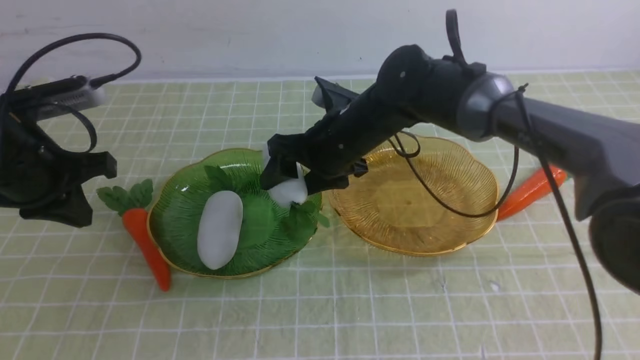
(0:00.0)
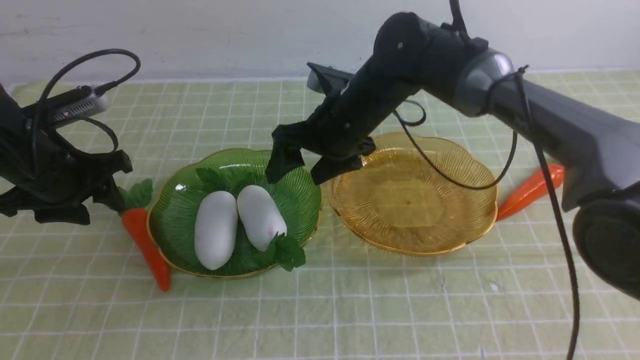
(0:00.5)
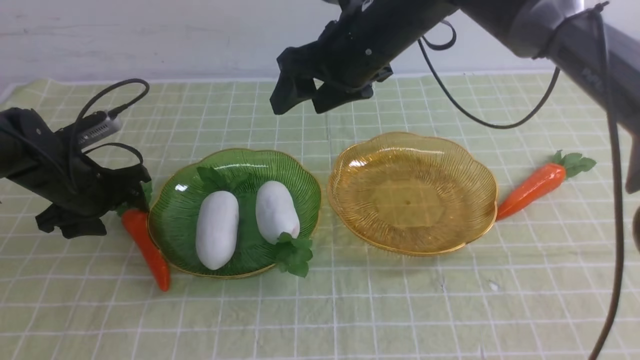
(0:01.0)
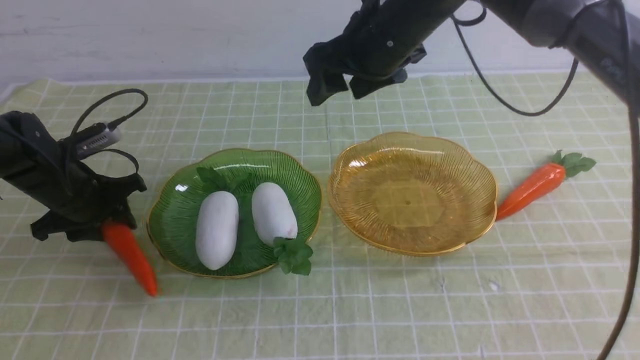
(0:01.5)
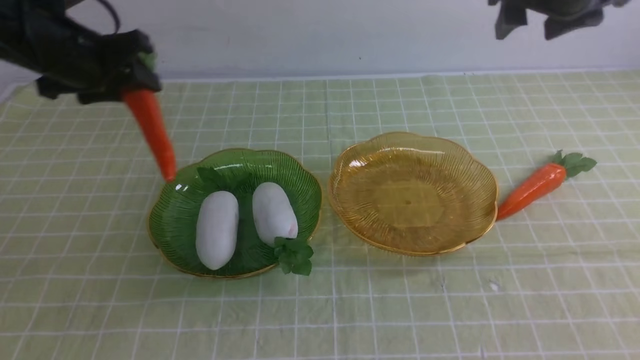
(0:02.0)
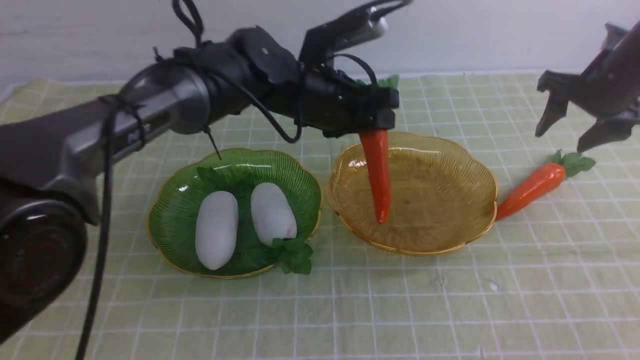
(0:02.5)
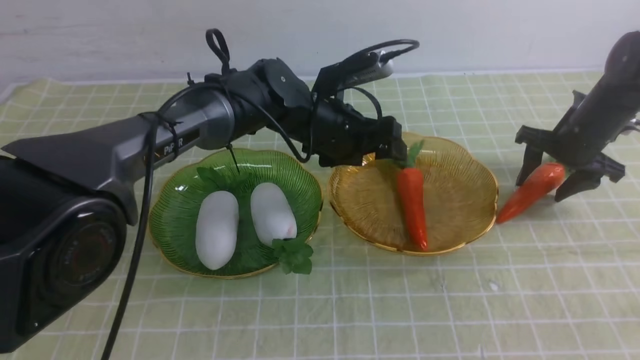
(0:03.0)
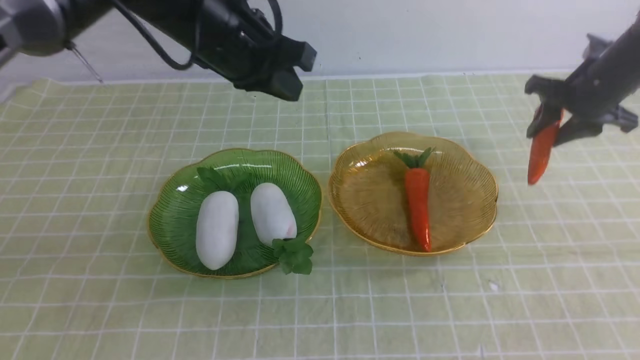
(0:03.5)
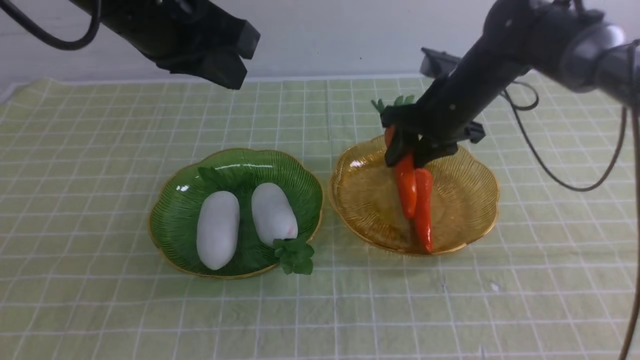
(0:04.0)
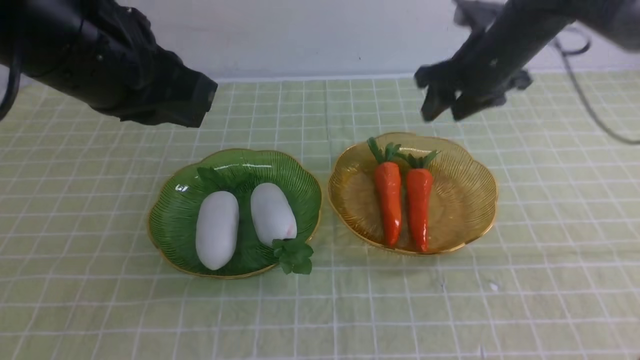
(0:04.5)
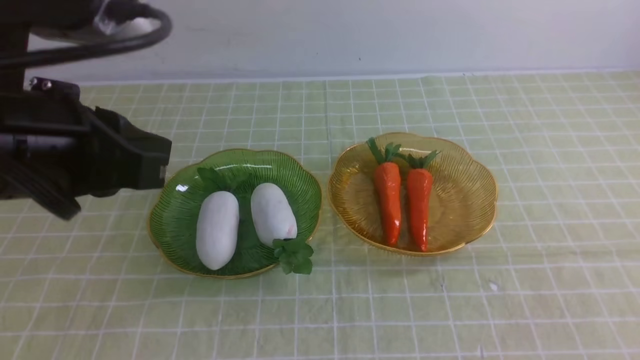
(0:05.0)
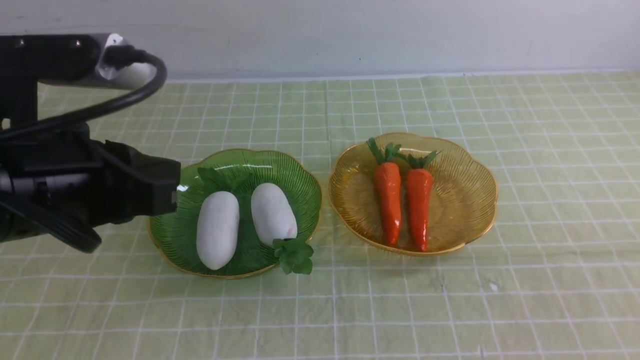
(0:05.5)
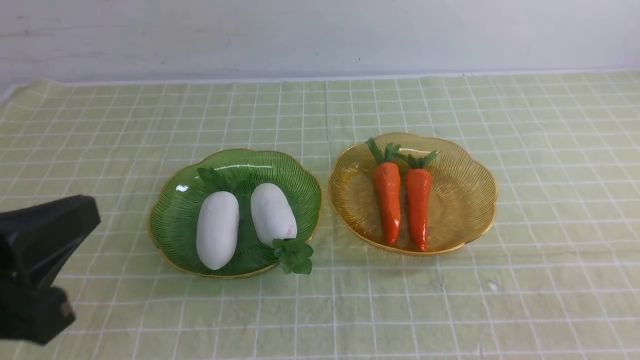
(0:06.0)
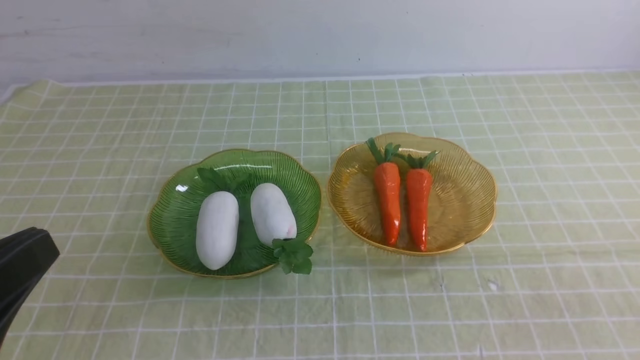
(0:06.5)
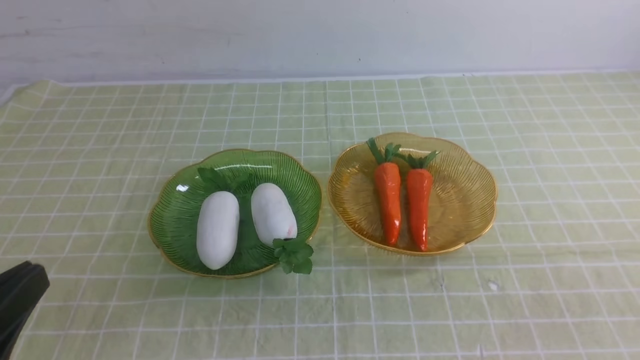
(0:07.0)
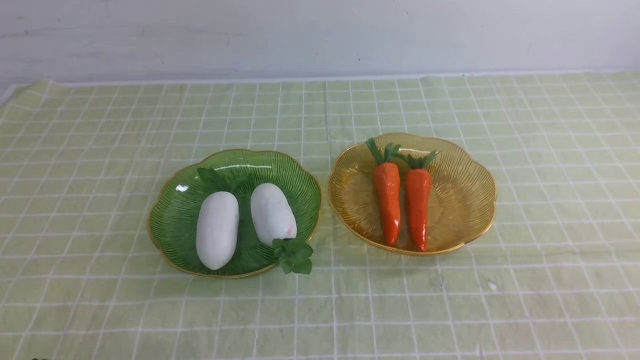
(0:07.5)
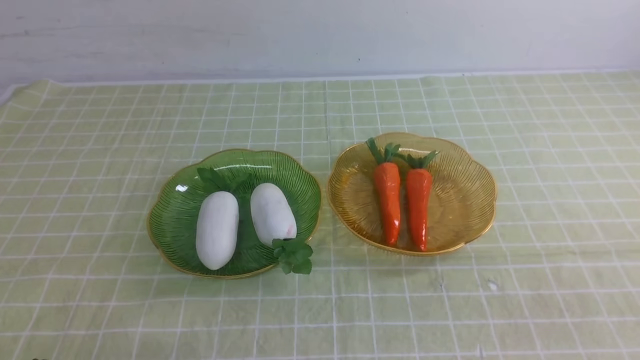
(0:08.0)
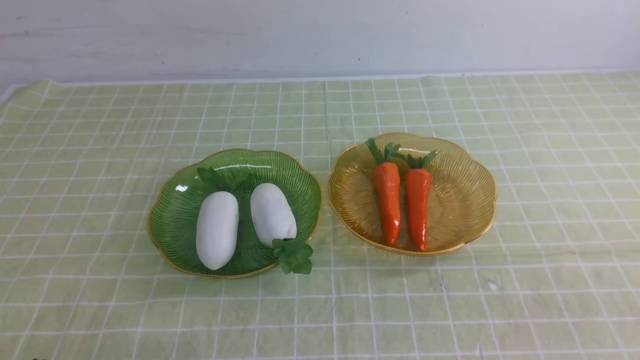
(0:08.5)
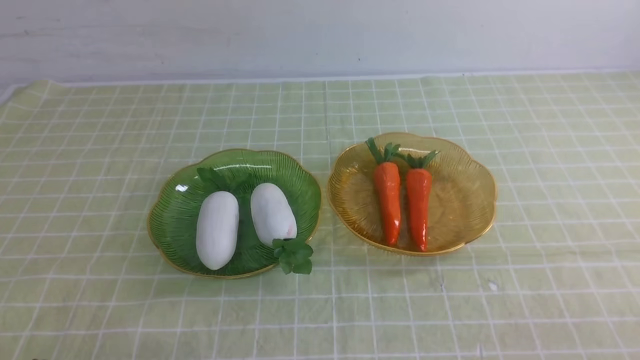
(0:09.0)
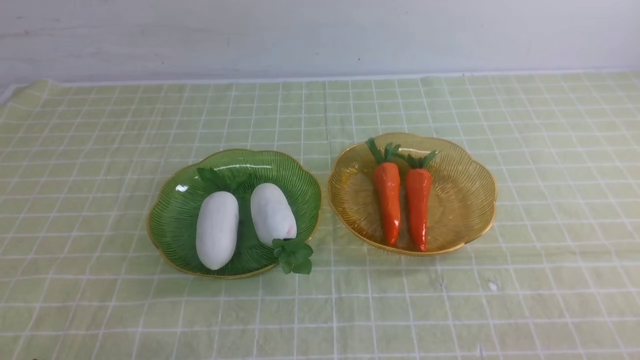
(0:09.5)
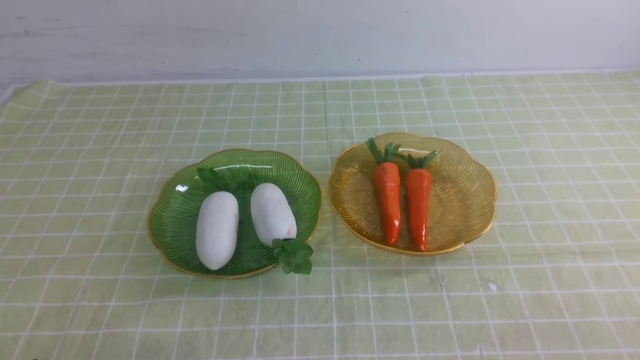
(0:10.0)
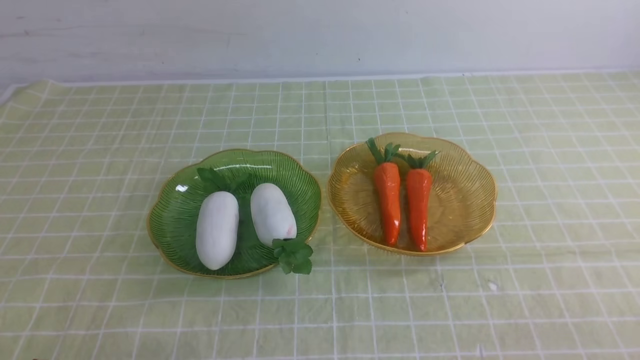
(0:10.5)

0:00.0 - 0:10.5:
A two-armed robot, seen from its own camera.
Step, 0:00.0 - 0:01.0: use the right arm to grab a radish and put it into the left plate.
Step, 0:01.5 - 0:03.5: use the left arm to grab a carrot and put it into the right plate.
Step, 0:04.0 - 0:05.5: use the right arm to grab a carrot and put it into the right plate.
0:00.0 - 0:02.0: The right gripper moves to the right and upward, some 25 cm; the left gripper is displaced forward by about 10 cm, goes downward and returns, about 10 cm each way, and opens.
0:02.0 - 0:04.0: The right gripper is displaced downward and to the left by about 15 cm, while the left gripper heads backward, upward and to the right, covering approximately 20 cm, and closes its fingers.
0:04.0 - 0:06.5: The left gripper moves backward, about 25 cm, while the right gripper travels backward by roughly 40 cm, and closes.
0:06.5 - 0:08.5: The left gripper travels downward by roughly 15 cm.

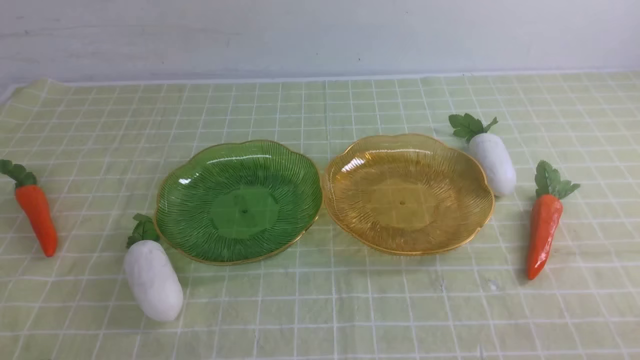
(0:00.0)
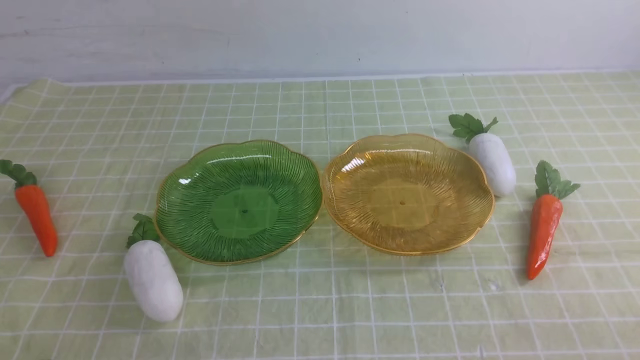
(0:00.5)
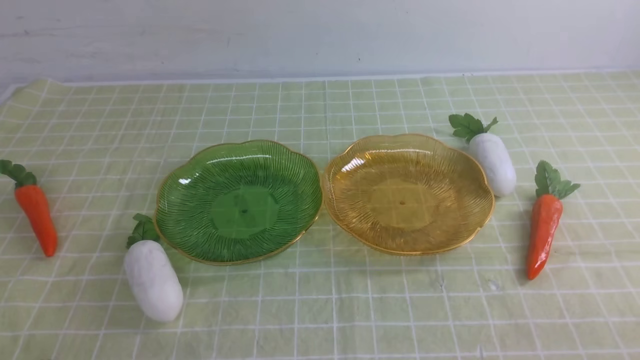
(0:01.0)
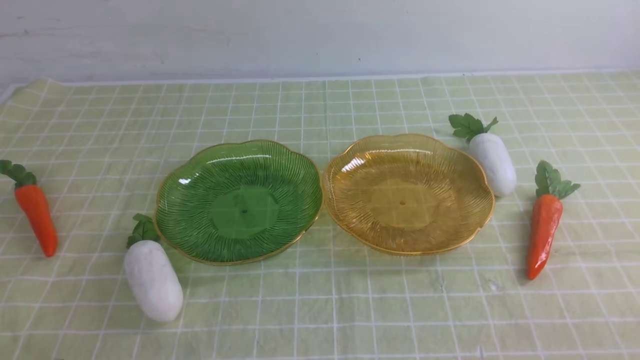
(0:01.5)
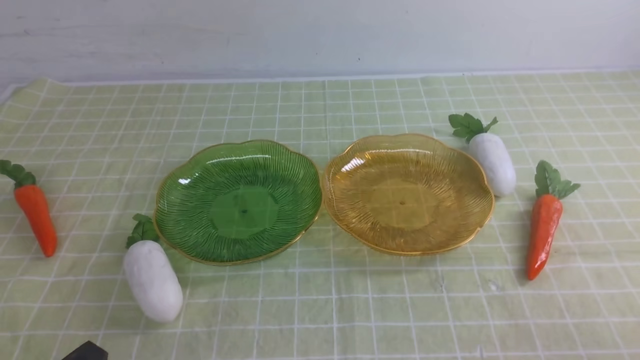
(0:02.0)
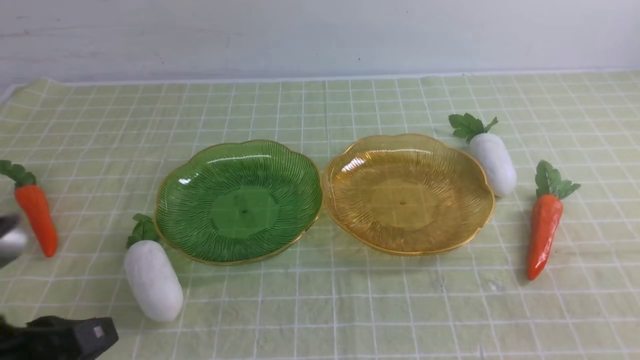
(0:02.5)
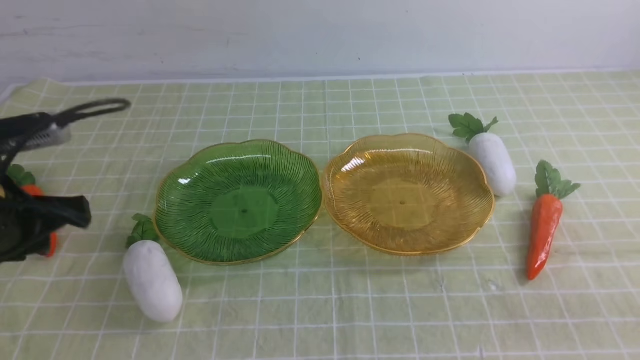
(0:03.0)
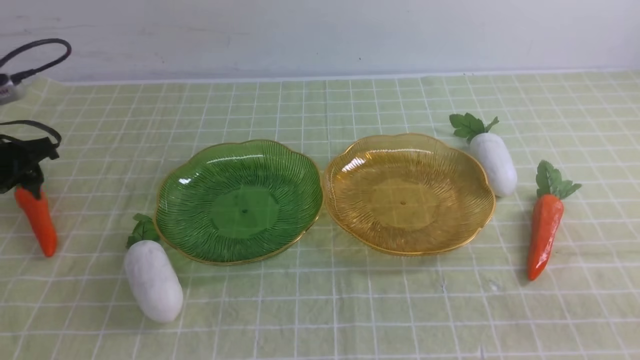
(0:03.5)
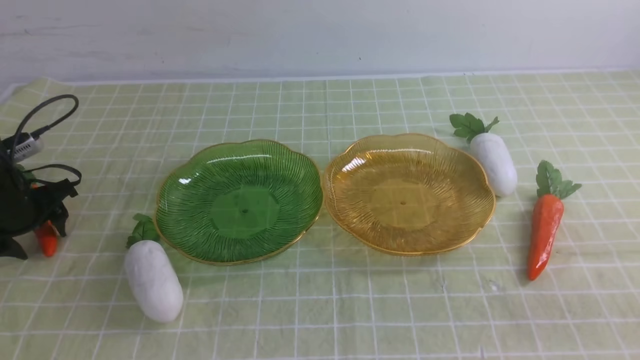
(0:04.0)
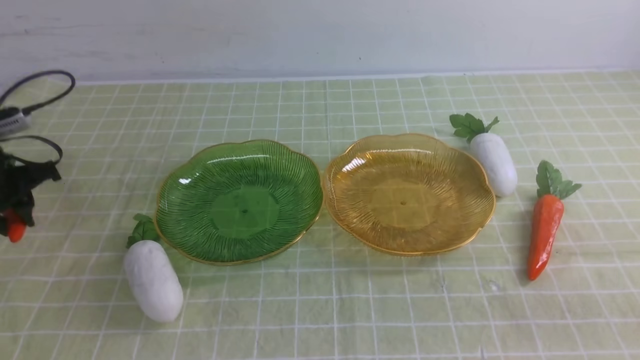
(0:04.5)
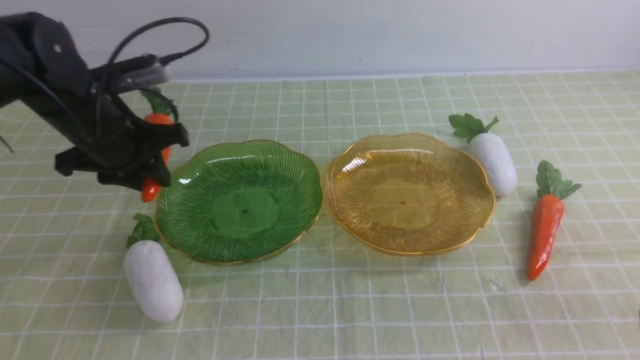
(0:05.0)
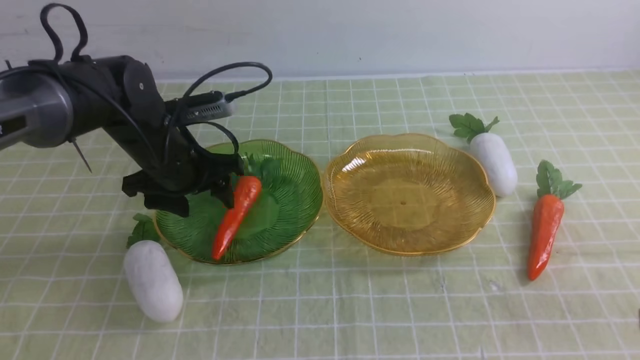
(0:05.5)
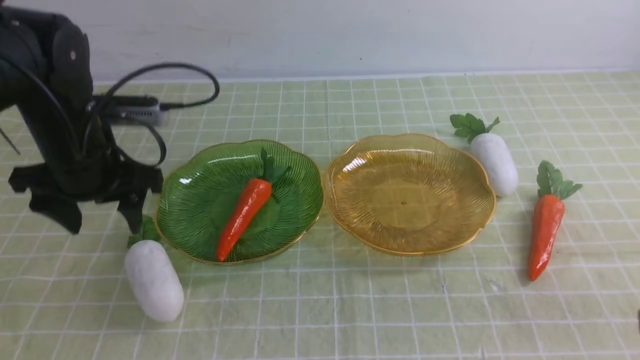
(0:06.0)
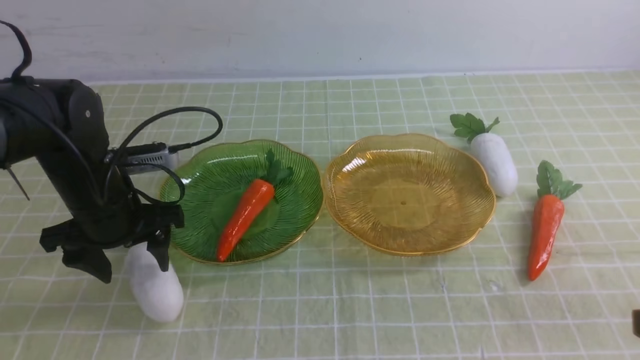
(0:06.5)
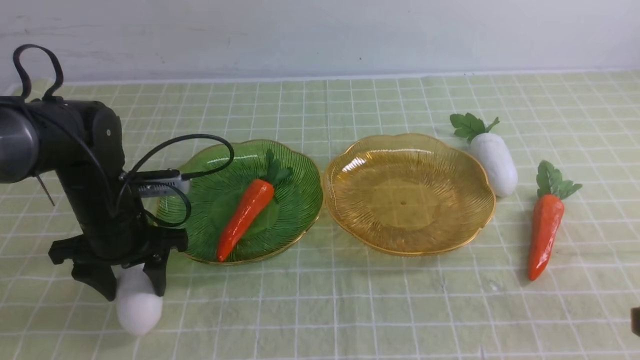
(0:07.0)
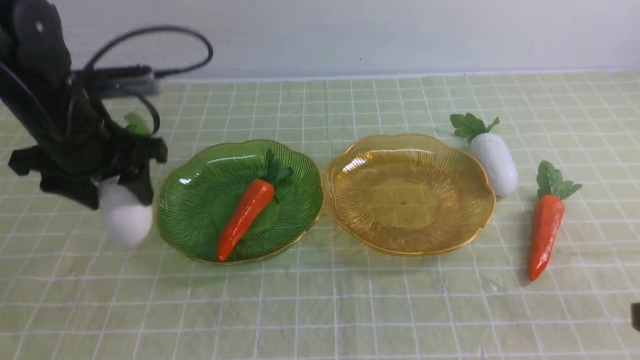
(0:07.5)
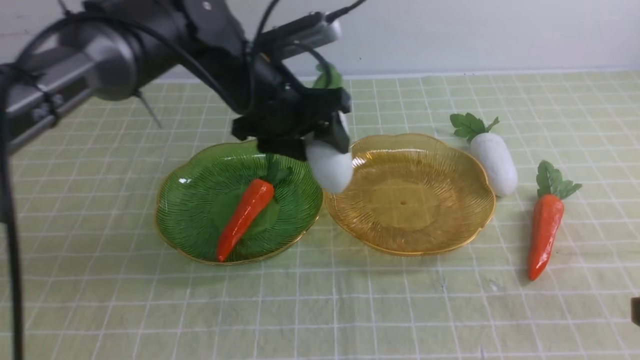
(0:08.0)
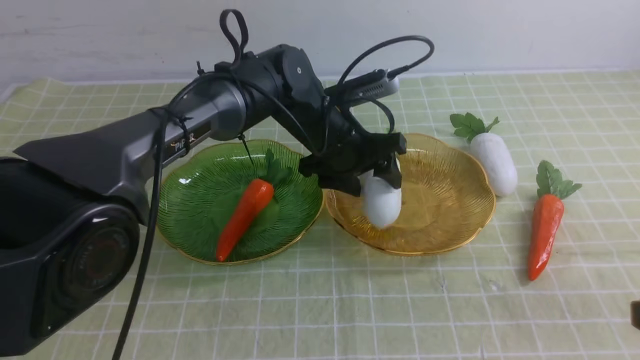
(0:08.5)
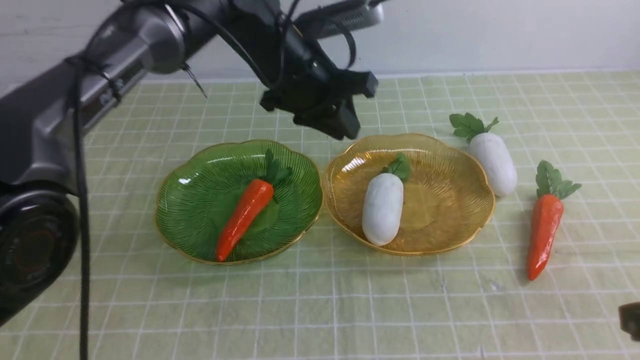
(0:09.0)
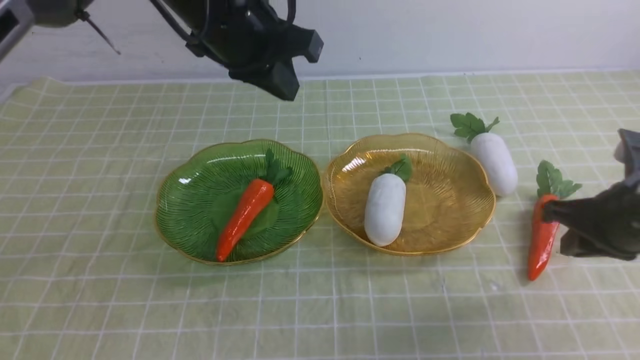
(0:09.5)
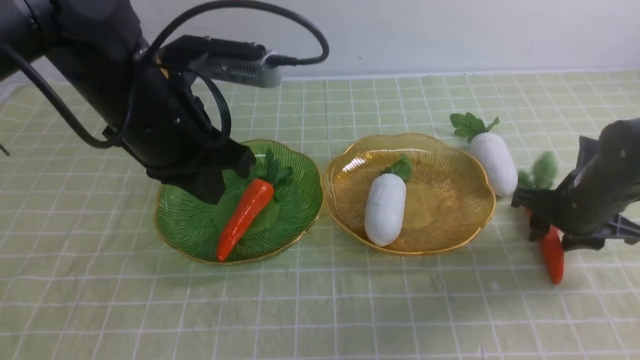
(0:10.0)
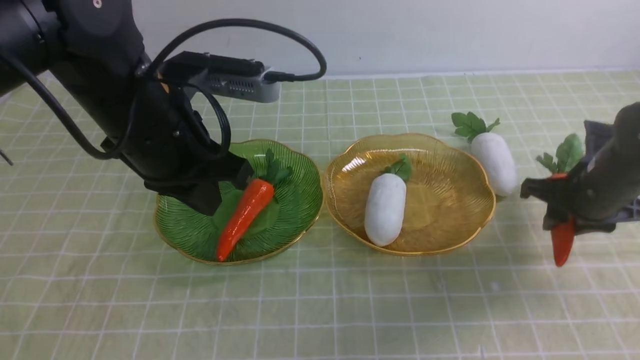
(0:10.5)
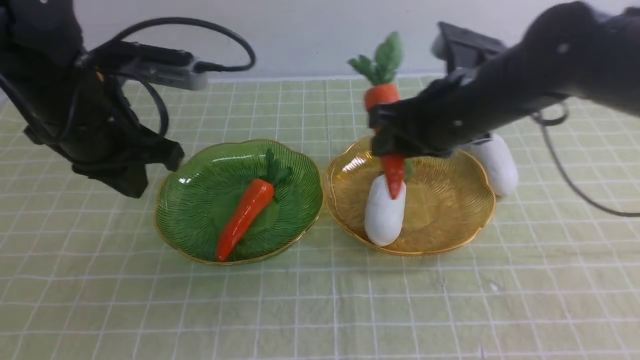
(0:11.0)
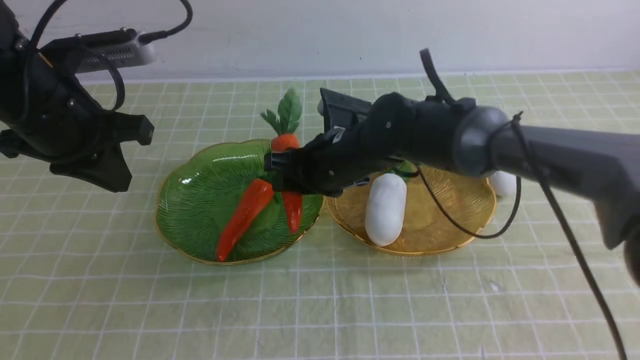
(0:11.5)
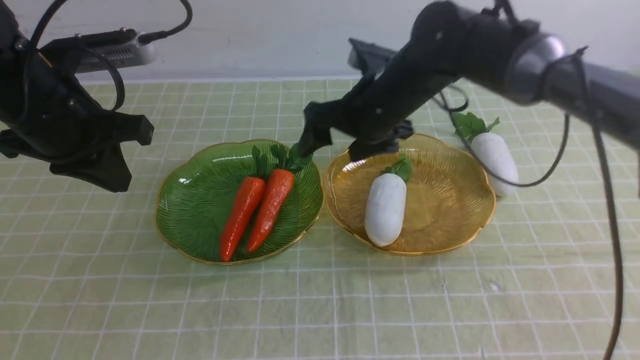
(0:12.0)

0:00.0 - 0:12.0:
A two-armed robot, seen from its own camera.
Step, 0:00.0 - 0:06.0: use the left arm to grab a carrot and put it into the left plate.
Step, 0:07.0 - 0:10.5: use the left arm to grab a radish and put it into the right plate.
0:02.0 - 0:04.0: The left gripper is displaced forward and to the left by roughly 35 cm, and opens up.
0:04.0 - 0:06.0: The left gripper goes about 20 cm to the right and upward, and closes and opens again.
0:06.0 - 0:08.0: The left gripper travels to the right by some 15 cm.
0:08.0 - 0:10.0: The left gripper travels backward by roughly 10 cm, moves approximately 10 cm upward and comes back, and closes, while the right gripper moves forward and downward, approximately 25 cm, and opens its fingers.
0:10.0 - 0:12.0: The left gripper travels to the left by some 10 cm. The right gripper moves to the left, some 25 cm, and opens its fingers.
